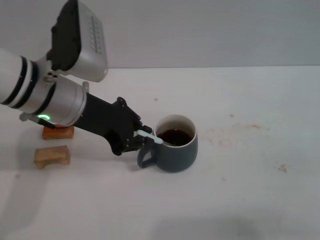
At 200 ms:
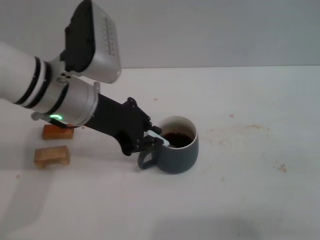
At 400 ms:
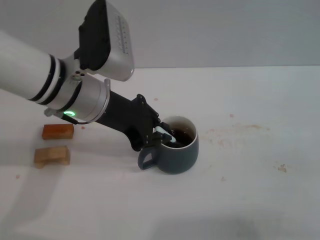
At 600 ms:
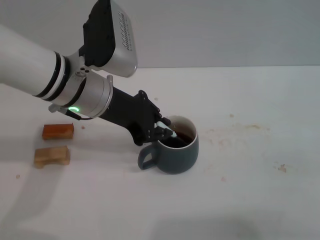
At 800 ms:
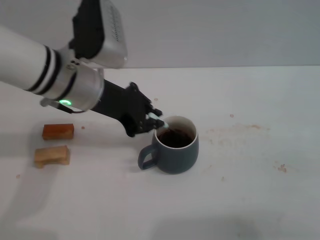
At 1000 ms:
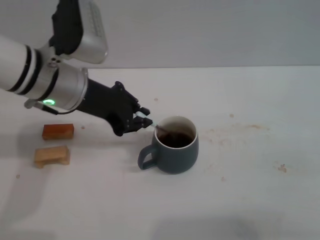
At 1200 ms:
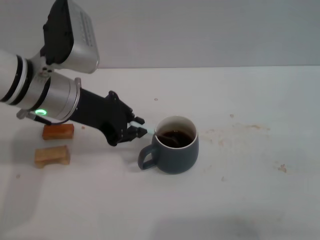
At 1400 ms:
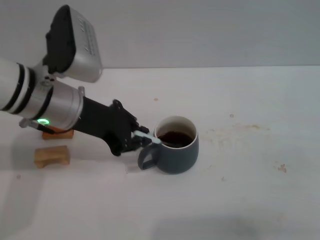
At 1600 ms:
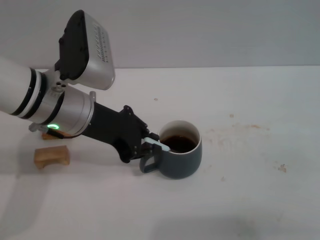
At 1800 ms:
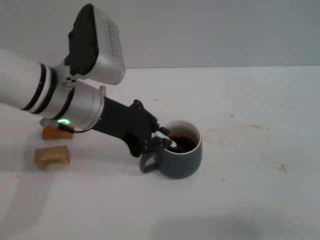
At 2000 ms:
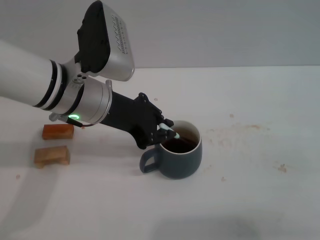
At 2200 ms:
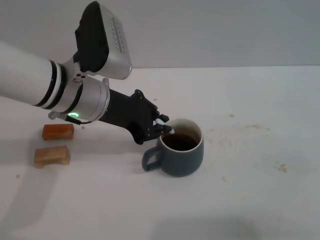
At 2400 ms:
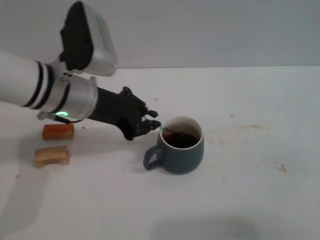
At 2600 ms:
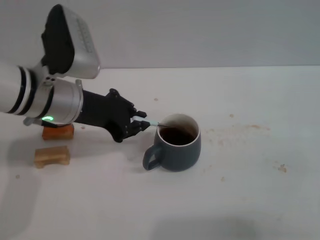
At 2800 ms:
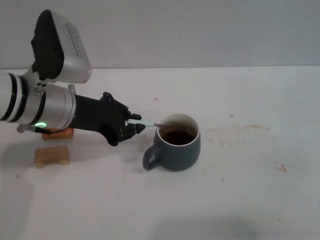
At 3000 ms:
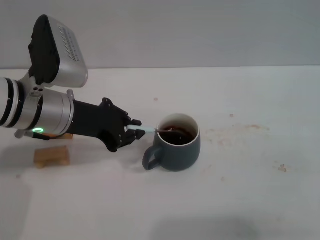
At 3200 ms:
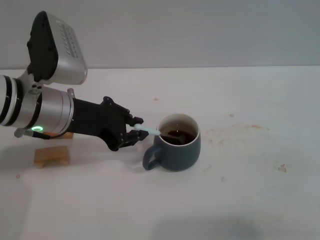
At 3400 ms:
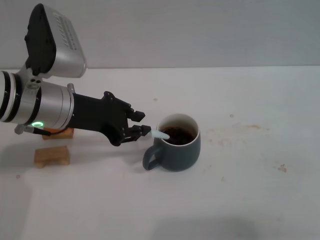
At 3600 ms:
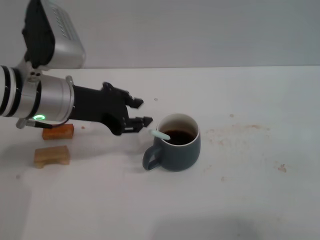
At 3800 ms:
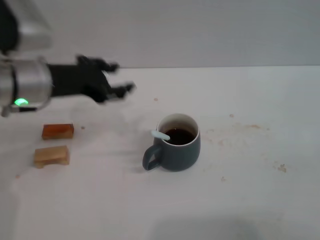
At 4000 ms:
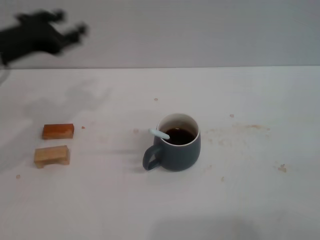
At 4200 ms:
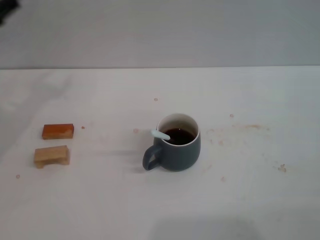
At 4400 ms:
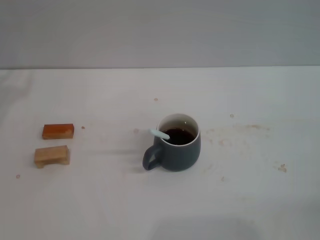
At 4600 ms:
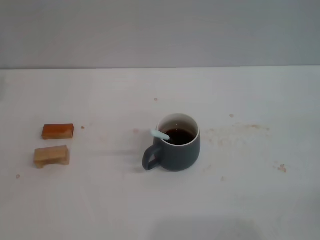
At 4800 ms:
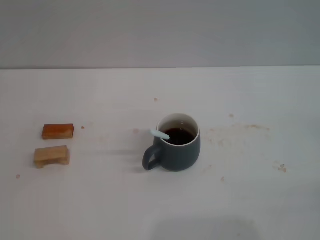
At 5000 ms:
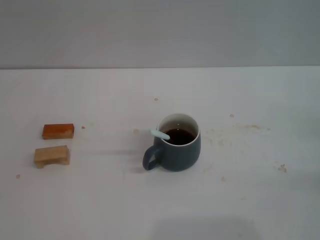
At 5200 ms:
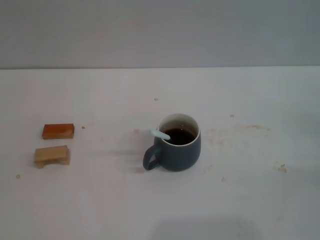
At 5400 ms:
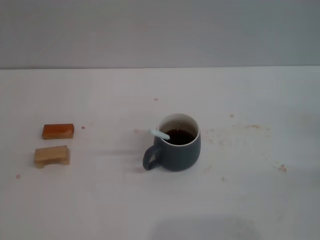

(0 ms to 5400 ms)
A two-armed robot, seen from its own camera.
Task of the whole recording: Move the grey cup to the center, lift the blue spoon, stir it three times in the cup, and put the spoon into the cup.
Step, 0 ms - 3400 ms: Stir the coffee in the cup with the left gripper.
0 ms - 2800 ms: The grippers stay close to where they were, moving slightly.
2800 ms - 4000 ms: The left gripper shifts some 10 cm to the left, and opens.
4000 ms - 5400 ms: The left gripper shifts about 20 cm to the left and downward.
